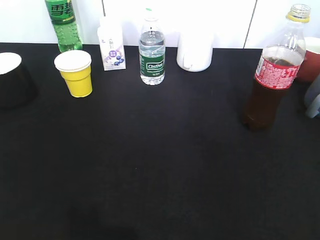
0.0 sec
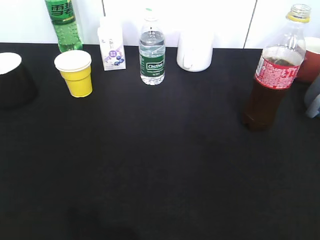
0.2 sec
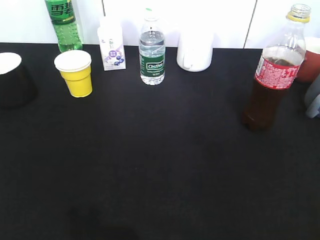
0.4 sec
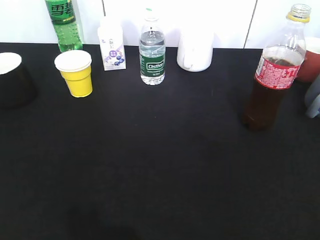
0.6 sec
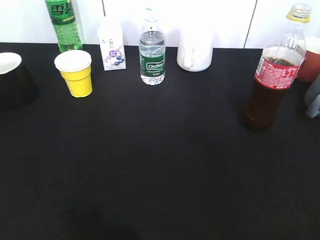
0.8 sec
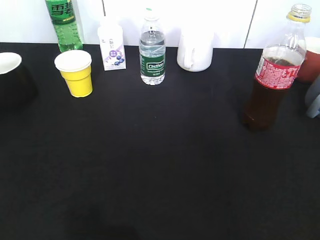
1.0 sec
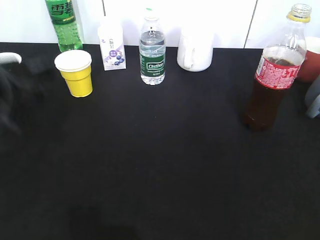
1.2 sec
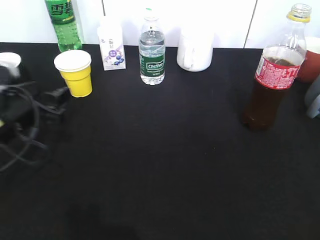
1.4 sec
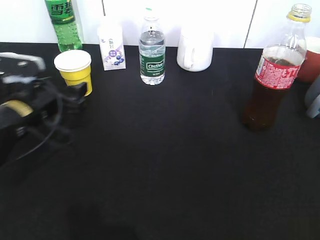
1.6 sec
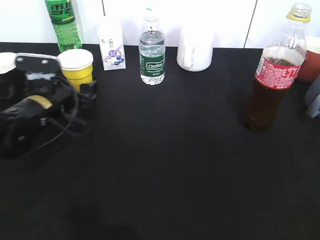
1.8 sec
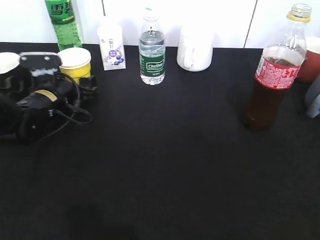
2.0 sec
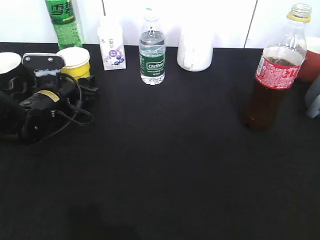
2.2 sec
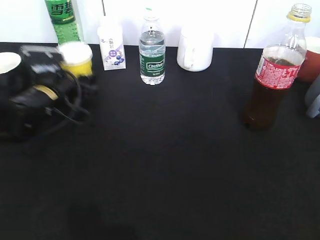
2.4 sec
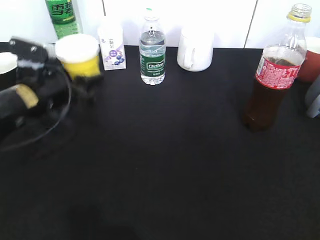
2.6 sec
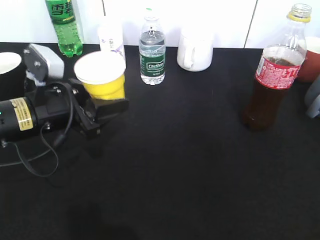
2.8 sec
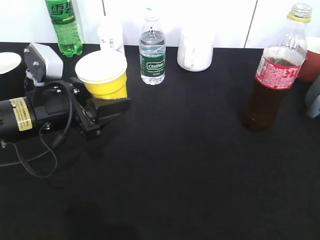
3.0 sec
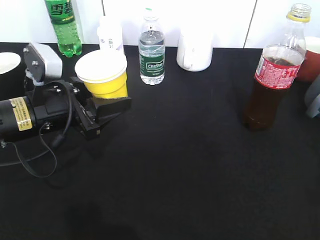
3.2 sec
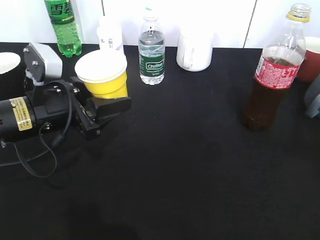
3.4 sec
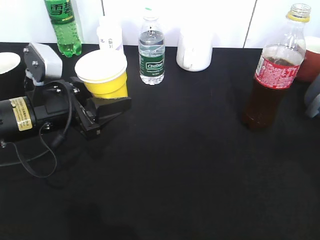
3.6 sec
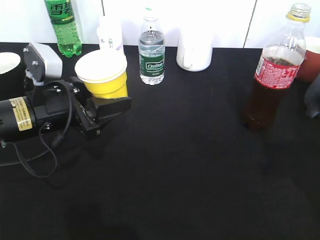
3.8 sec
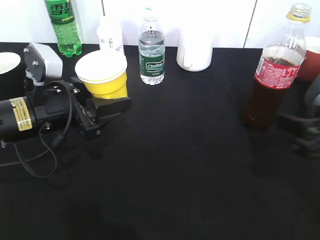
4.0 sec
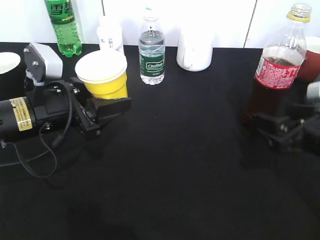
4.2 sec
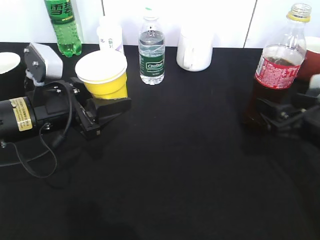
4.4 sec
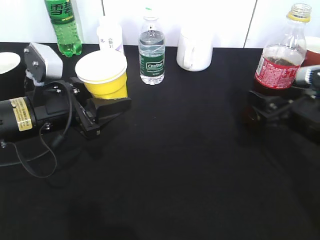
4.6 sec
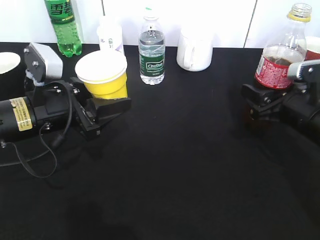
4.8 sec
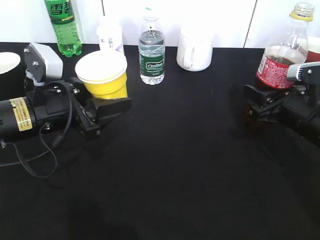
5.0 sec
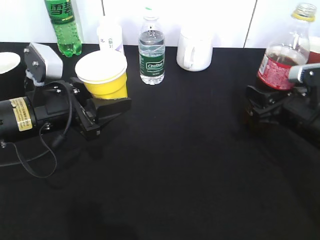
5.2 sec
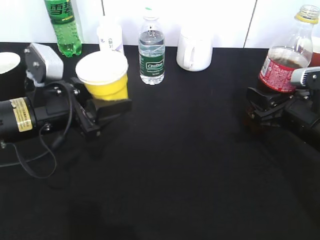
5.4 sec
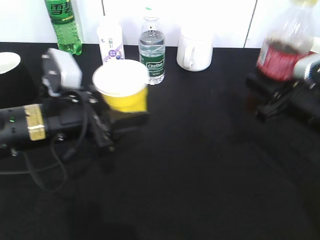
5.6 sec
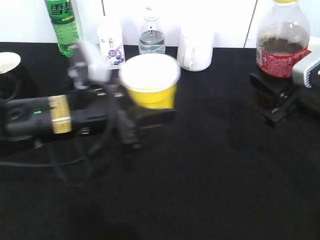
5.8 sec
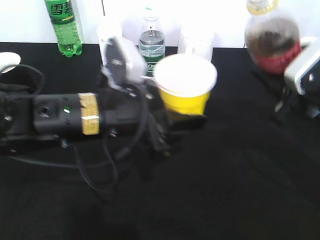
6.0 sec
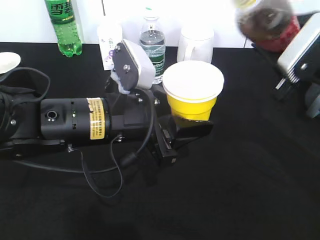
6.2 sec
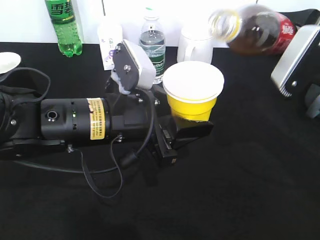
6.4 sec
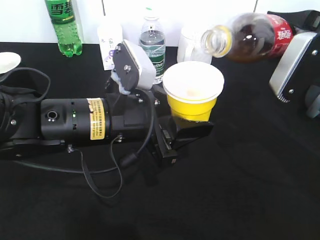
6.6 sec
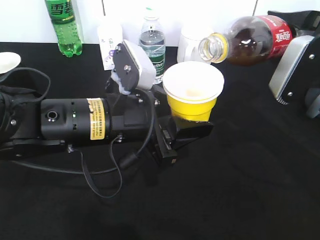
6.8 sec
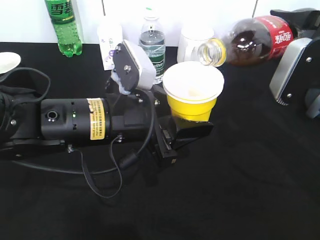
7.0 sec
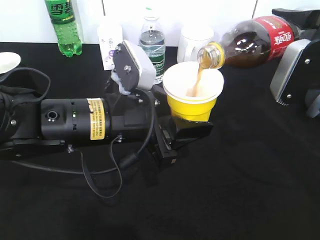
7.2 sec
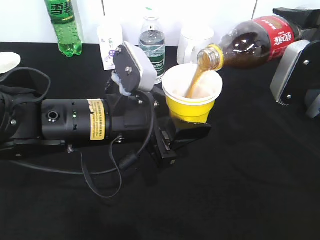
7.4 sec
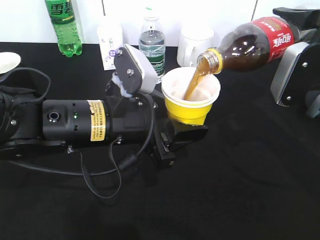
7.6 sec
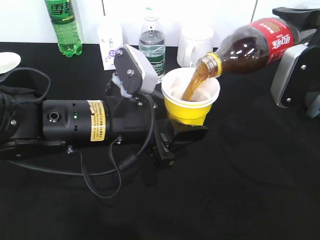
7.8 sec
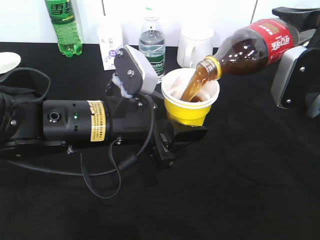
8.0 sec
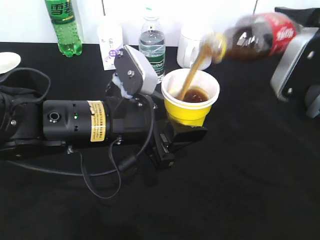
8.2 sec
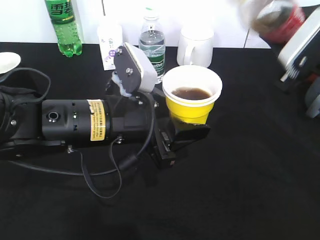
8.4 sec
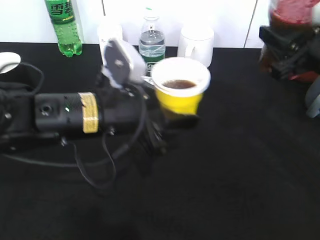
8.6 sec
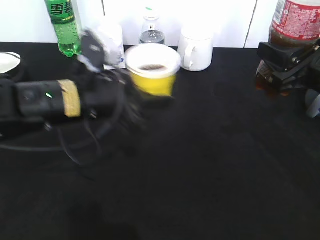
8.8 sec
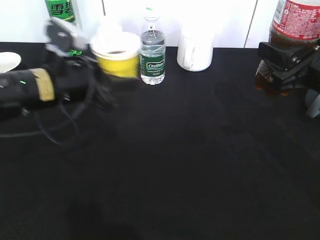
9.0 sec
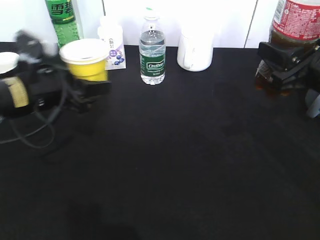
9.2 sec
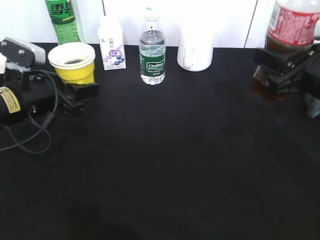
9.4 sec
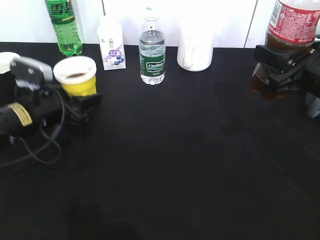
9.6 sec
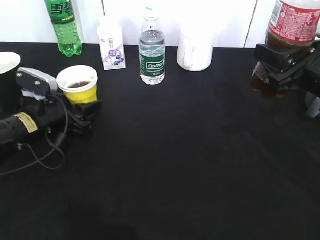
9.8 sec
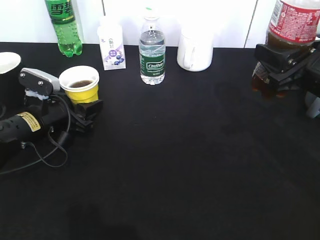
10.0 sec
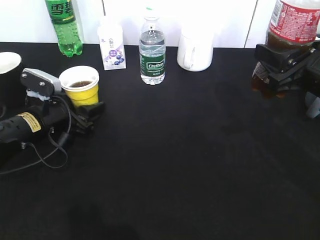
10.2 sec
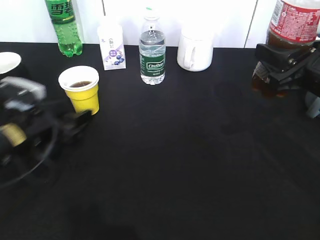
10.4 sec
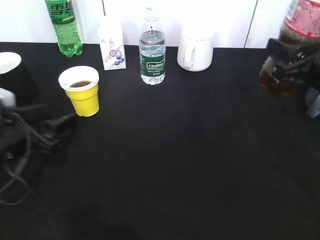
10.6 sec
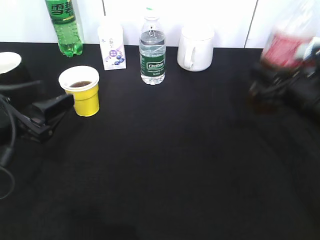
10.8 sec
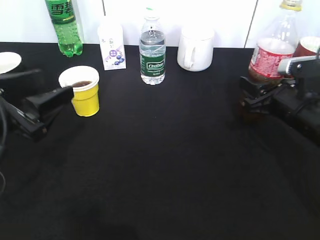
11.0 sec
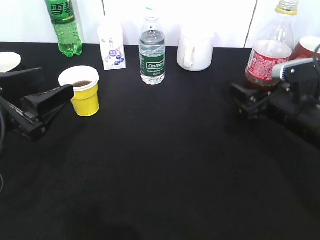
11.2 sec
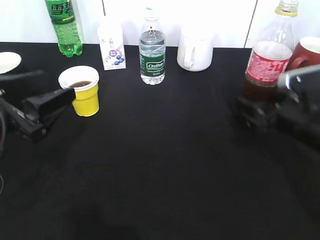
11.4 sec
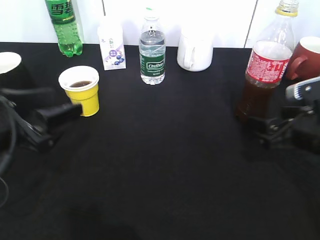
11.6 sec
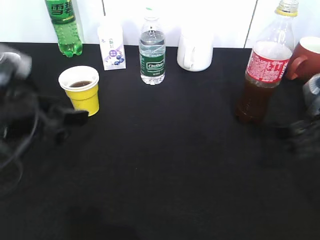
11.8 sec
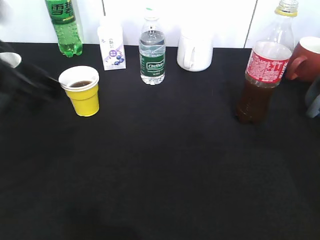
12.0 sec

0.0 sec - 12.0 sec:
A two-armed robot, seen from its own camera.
Step, 0.0 sec - 1.8 sec: Grasp the yellow paper cup with left gripper.
Step, 2.2 sec - 3.2 sec: Lift the yellow paper cup with left gripper.
Step, 3.4 sec - 5.2 sec: Grasp the bottle with cola with right gripper.
Step, 5.4 sec - 8.0 sec: Pour the cola from bottle to cup with right gripper.
Step, 8.2 sec - 10.4 sec: Place the yellow paper cup on the table with left gripper.
Step, 10.6 sec - 11.8 sec: Place the cola bottle on the table with right gripper.
0.0 sec - 1.6 sec: The left gripper goes approximately 35 cm forward and downward, and opens its fingers.
1.6 sec - 3.0 sec: The left gripper moves some 10 cm forward and comes back, and closes up.
3.0 sec - 4.4 sec: The right gripper is displaced forward and downward by approximately 25 cm.
4.4 sec - 6.0 sec: The right gripper is displaced upward by some 5 cm, and closes up, while the left gripper heads to the right, covering approximately 10 cm.
7.6 sec - 9.0 sec: The left gripper moves to the left and forward, roughly 10 cm.
9.0 sec - 10.4 sec: The left gripper moves downward and to the left, about 10 cm.
10.4 sec - 12.0 sec: The left gripper goes about 20 cm upward and backward, while the right gripper shifts roughly 5 cm upward, and opens.

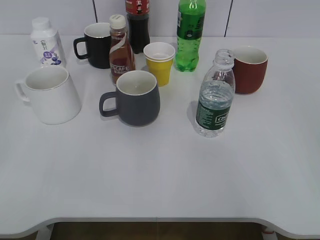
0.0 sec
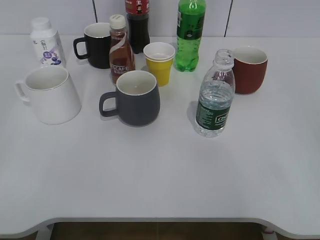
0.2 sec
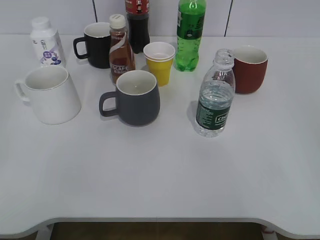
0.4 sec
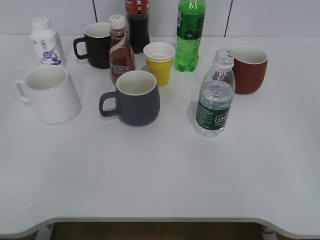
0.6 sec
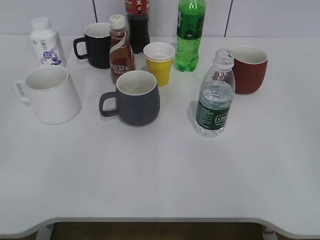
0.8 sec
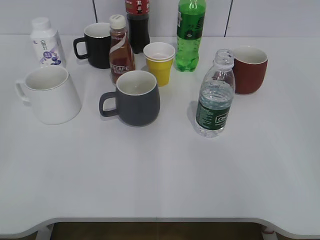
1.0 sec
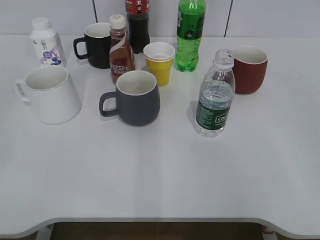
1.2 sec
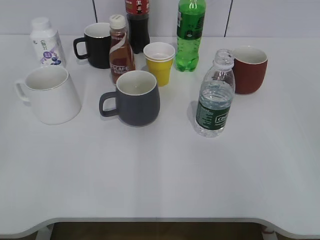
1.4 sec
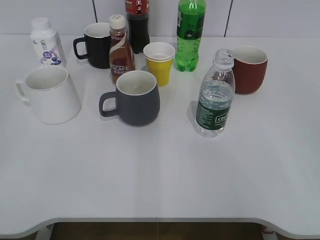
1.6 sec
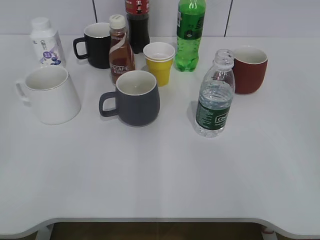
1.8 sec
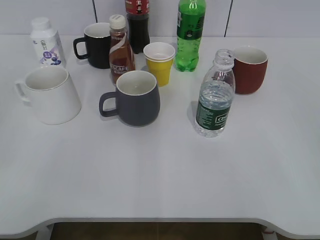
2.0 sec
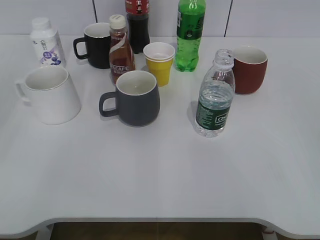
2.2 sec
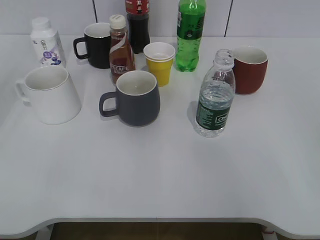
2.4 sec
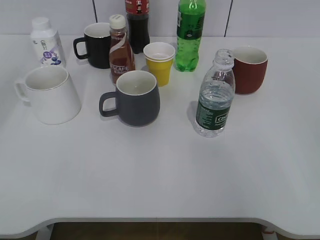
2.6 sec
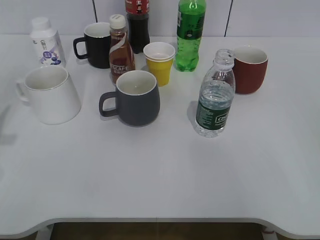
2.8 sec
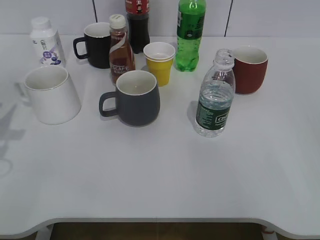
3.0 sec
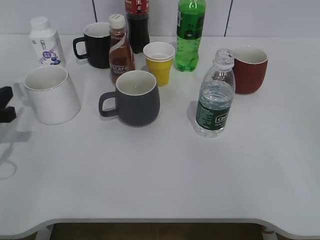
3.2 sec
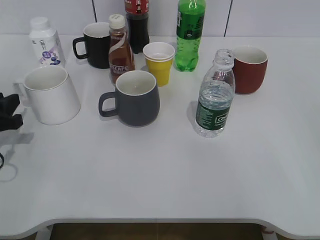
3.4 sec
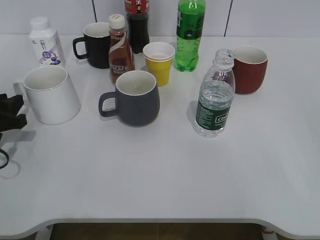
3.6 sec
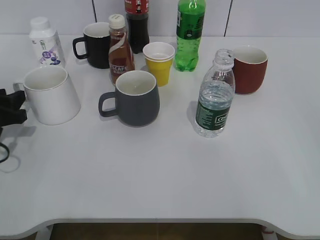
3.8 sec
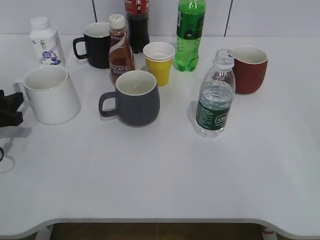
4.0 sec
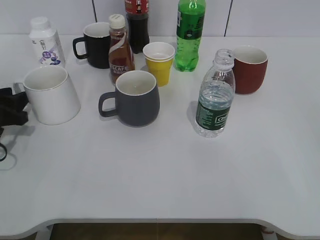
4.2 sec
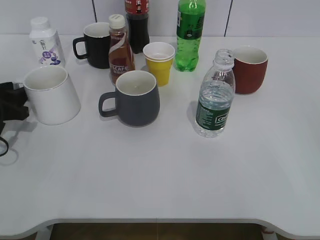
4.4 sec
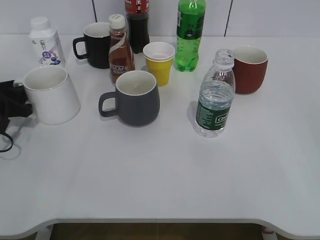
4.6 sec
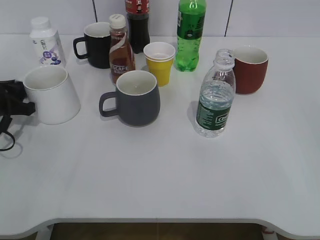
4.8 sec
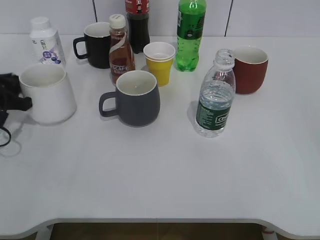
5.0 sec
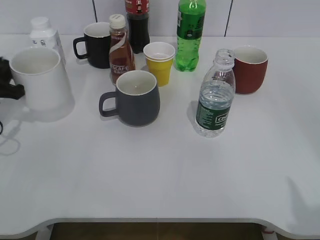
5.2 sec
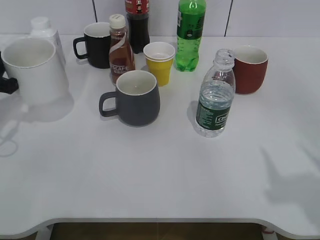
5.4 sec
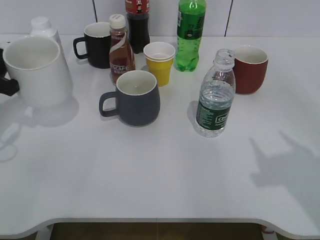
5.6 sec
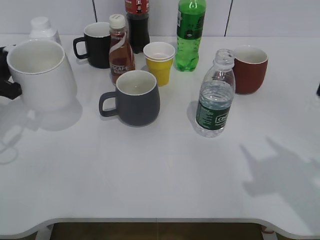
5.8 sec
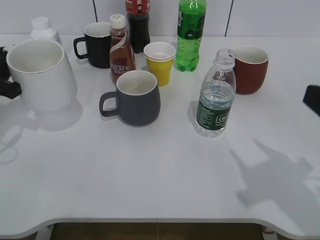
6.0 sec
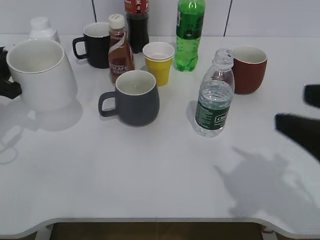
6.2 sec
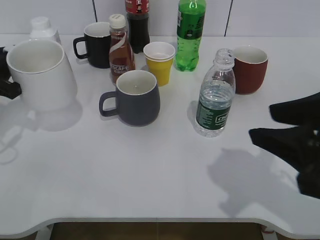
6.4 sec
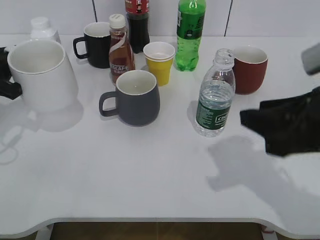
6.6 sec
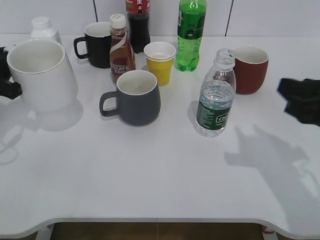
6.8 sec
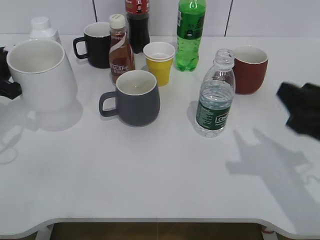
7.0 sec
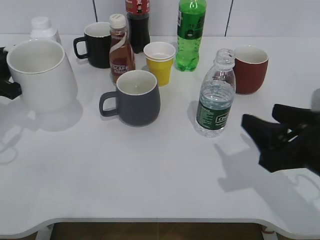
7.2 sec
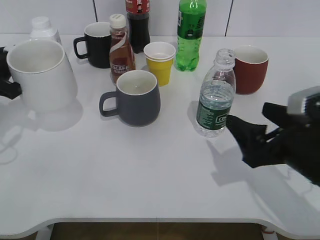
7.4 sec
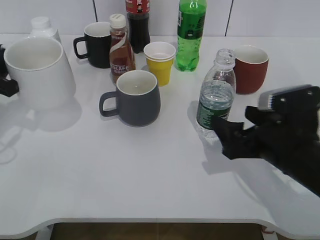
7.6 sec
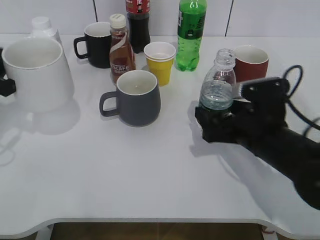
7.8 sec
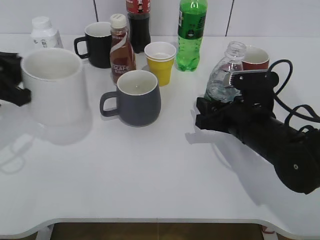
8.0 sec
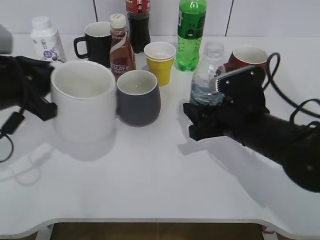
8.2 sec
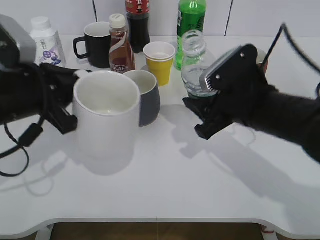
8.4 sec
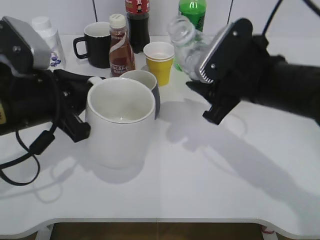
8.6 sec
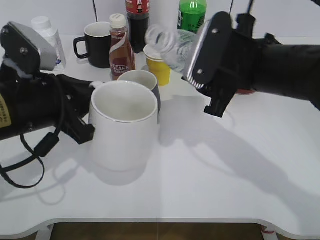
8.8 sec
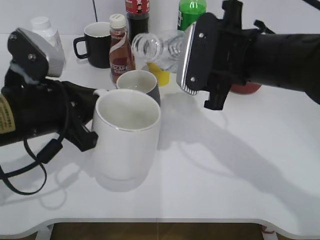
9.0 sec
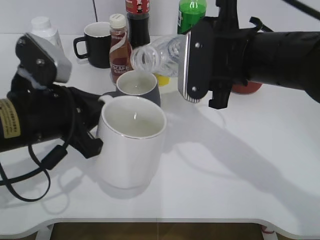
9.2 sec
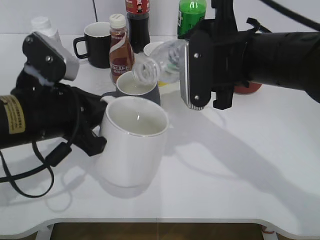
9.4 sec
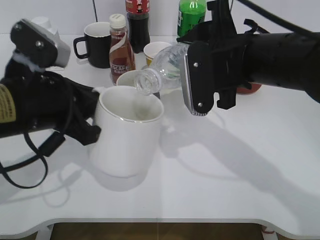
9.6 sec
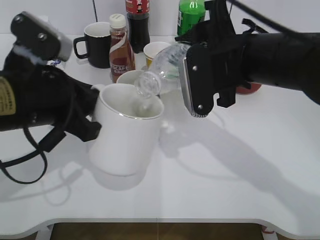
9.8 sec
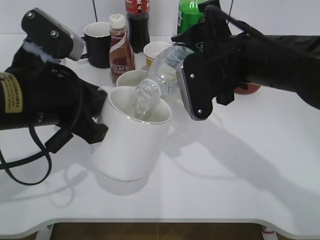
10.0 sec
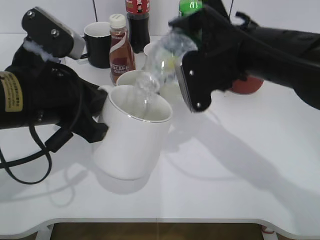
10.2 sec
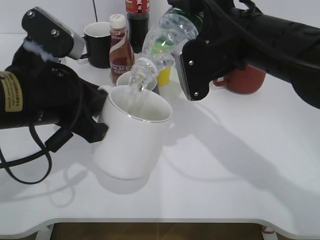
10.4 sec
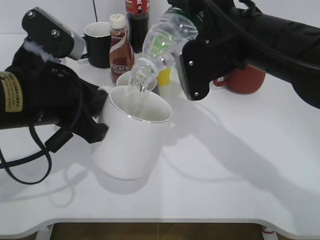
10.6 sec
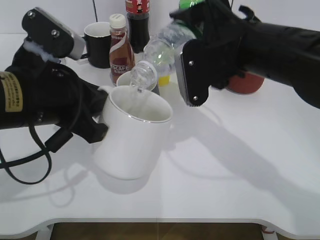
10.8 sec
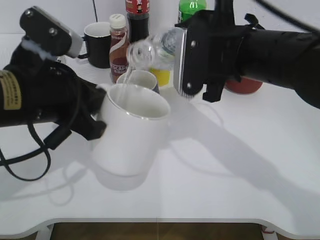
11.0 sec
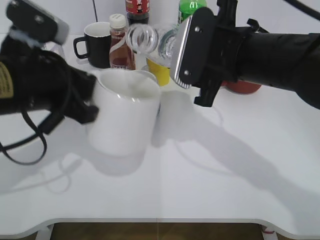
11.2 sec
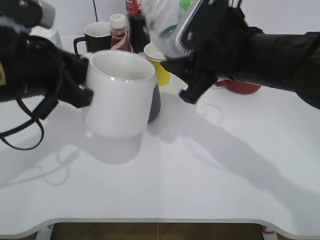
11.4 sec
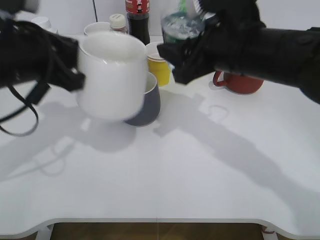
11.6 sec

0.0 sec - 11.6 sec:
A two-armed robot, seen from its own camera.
Step, 1.8 sec - 4.8 sec: Grasp the white cup with left gripper.
Step, 5.0 sec - 5.8 sec: Lift the white cup with left gripper.
Step, 6.0 sec - 8.0 sec: Grasp the bottle with water with right gripper.
Step, 8.2 sec - 11.0 sec: Pour the water from bottle to cup with right gripper.
2.8 sec - 4.4 sec: The left gripper heads downward and forward, covering roughly 15 cm.
4.4 sec - 5.8 sec: The left gripper travels upward by approximately 5 cm, and closes its fingers. The right gripper moves forward, approximately 15 cm, and closes up.
5.8 sec - 7.2 sec: The right gripper goes some 10 cm downward and to the left, and closes and opens again.
7.2 sec - 8.8 sec: The left gripper is displaced to the right and backward by about 15 cm. Meanwhile the right gripper moves forward, to the left and upward, about 15 cm.
10.2 sec - 11.6 sec: The left gripper changes place by about 5 cm.
